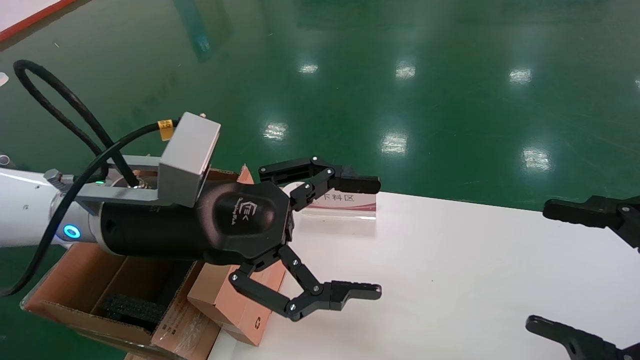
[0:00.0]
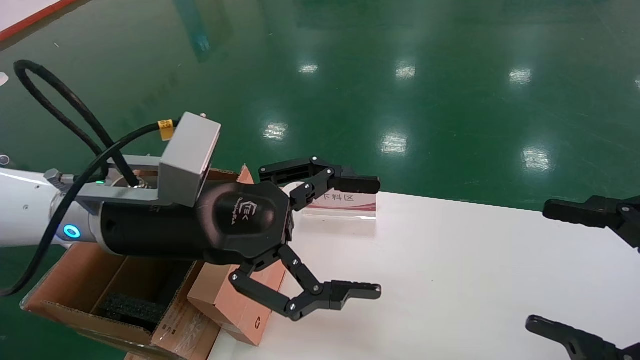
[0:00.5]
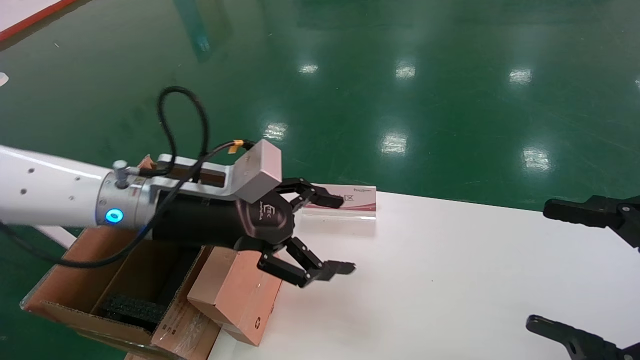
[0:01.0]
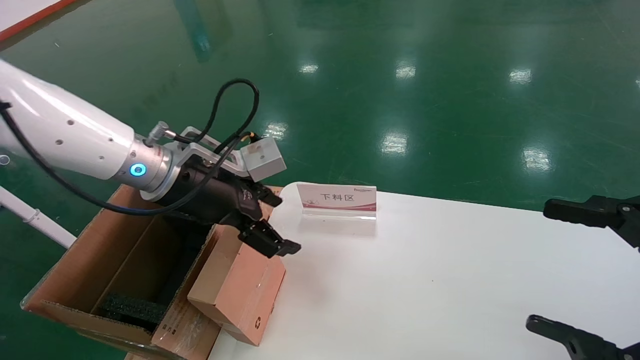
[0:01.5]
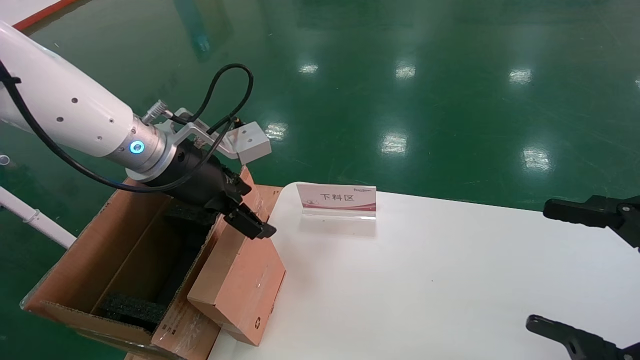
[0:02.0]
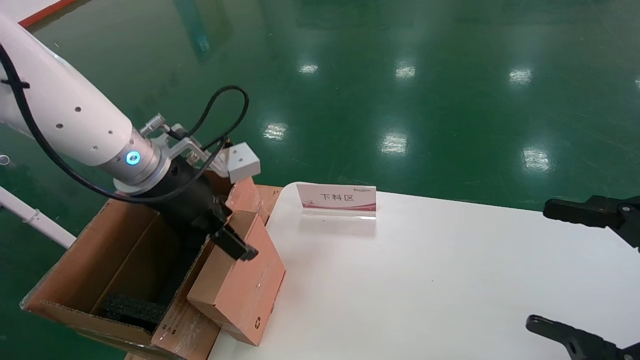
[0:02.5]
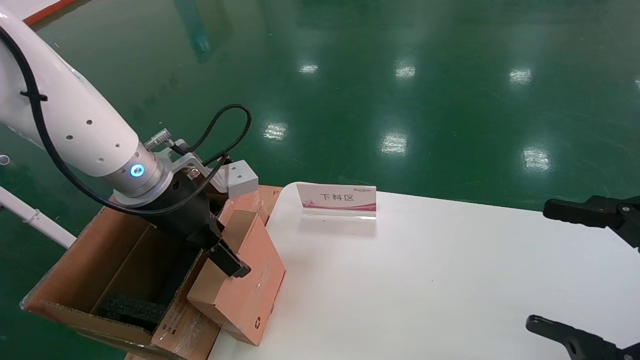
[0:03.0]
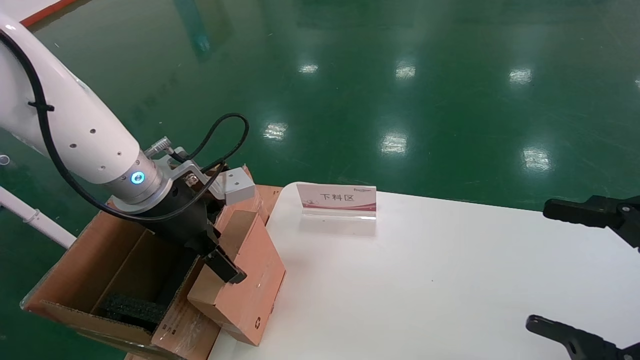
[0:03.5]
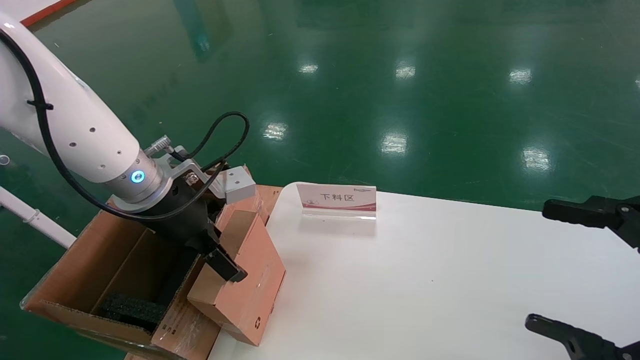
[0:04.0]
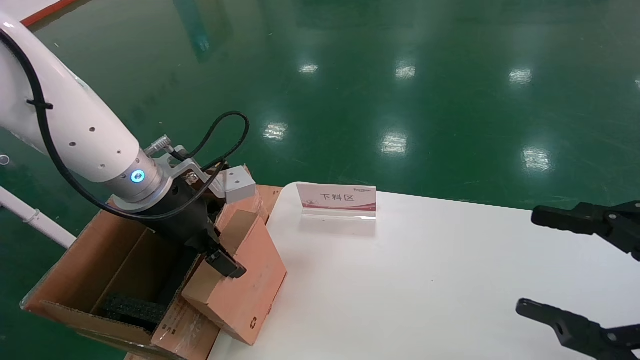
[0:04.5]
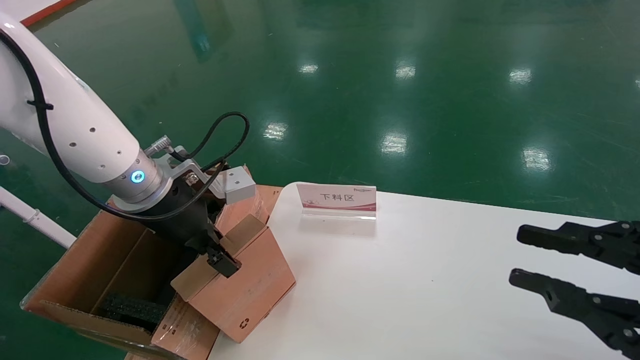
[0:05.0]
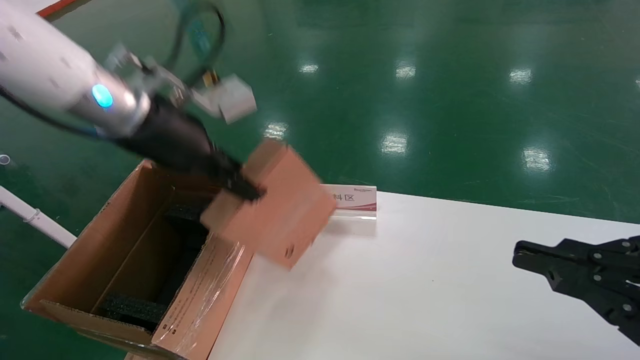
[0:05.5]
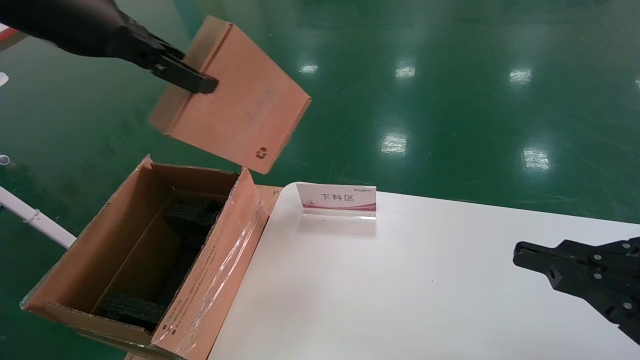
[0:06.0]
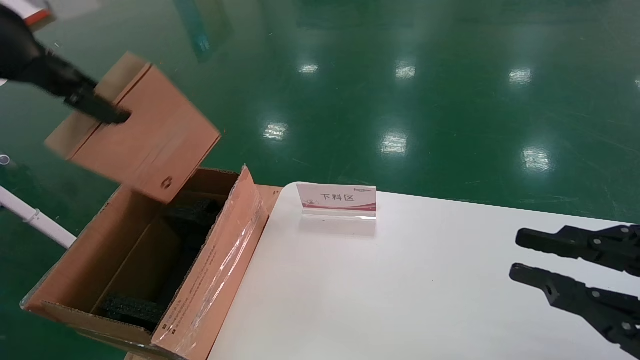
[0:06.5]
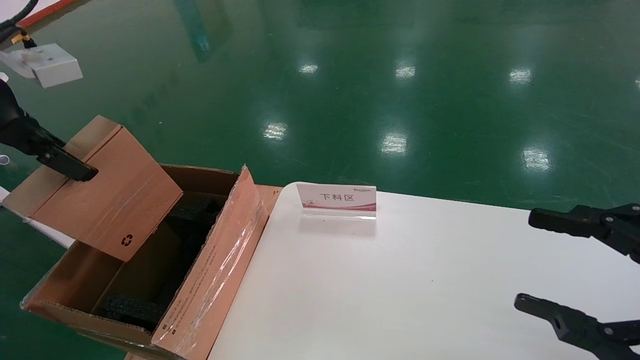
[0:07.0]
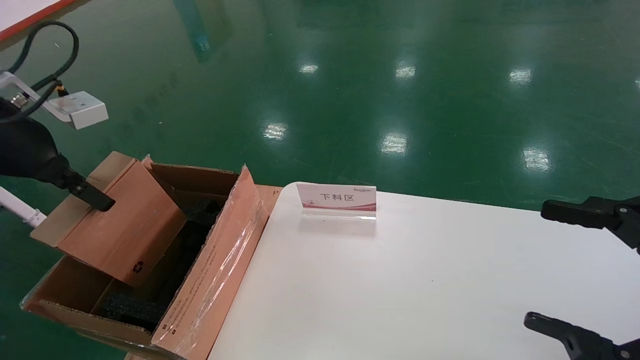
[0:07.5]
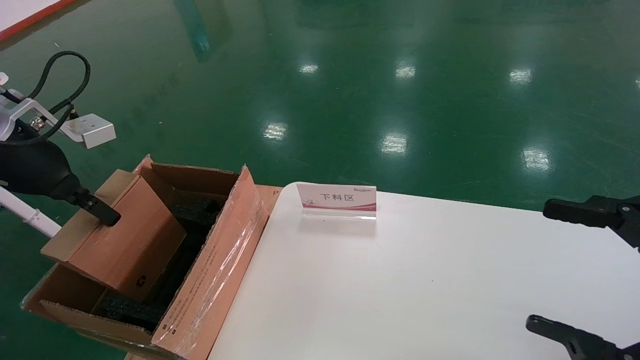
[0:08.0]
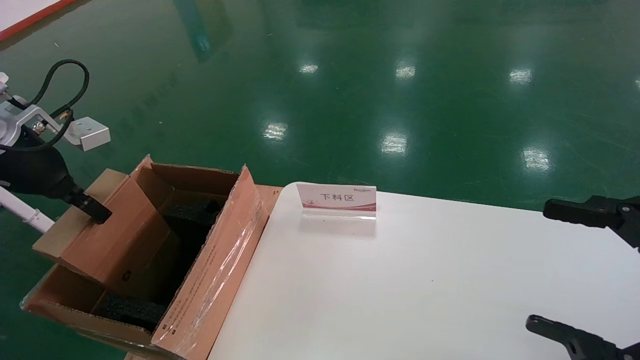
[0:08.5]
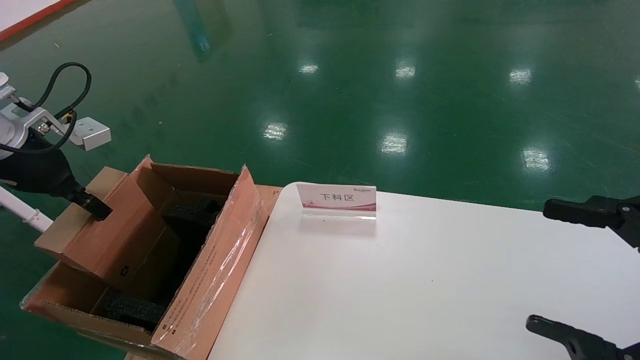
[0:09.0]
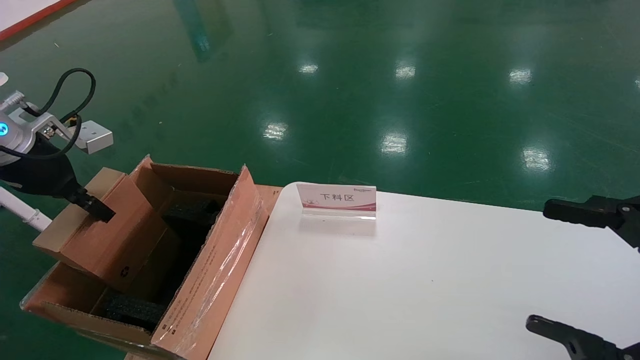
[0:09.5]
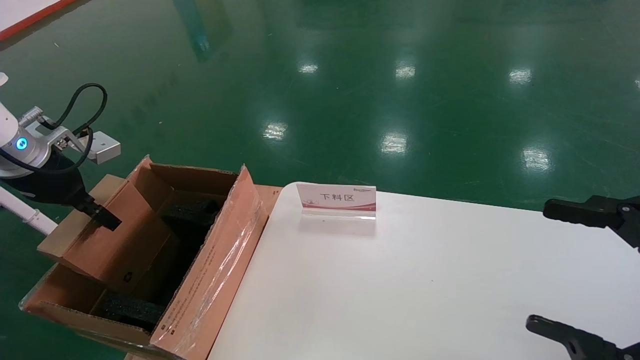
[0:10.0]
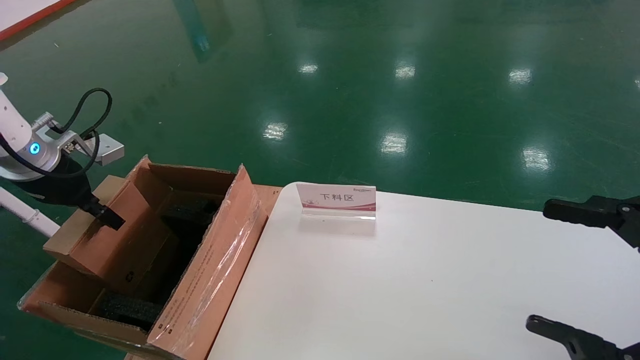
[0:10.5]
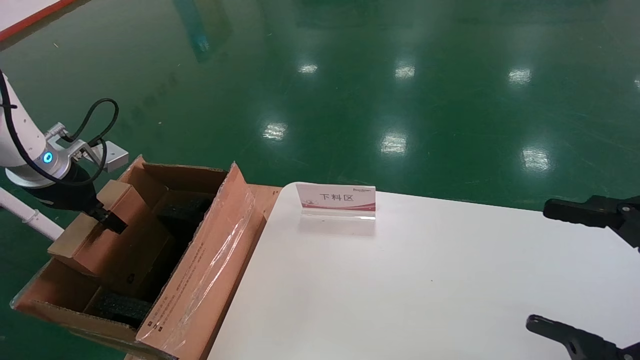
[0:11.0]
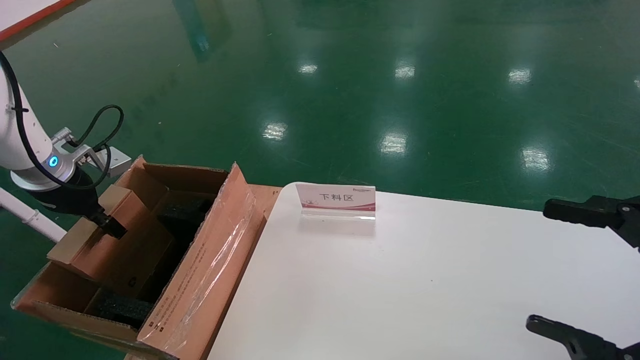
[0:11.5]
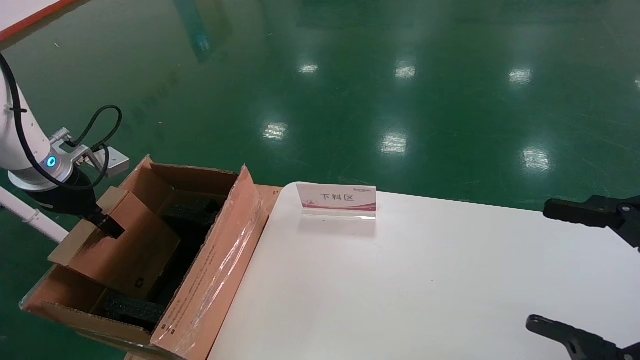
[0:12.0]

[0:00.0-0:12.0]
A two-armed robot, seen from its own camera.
Task of the whole recording: pick up the small cardboard box and load it into the large cardboard box.
Step, 0:01.0 to 0:05.0: Pick up the mouse and power cord box.
0:00.0 to 0:02.0: The left gripper moves forward, about 10 cm.
0:02.0 to 0:04.0: The grippers stay close to where they were, moving slightly.
0:04.0 to 0:06.0: The left gripper heads upward, covering roughly 20 cm, and closes. The right gripper closes up.
0:06.0 to 0:08.0: The left gripper heads downward and to the left, covering some 20 cm, while the right gripper opens.
0:08.0 to 0:10.0: The left gripper ends up roughly 5 cm from where it was.
0:10.0 to 0:12.0: The grippers stay close to where they were, moving slightly.

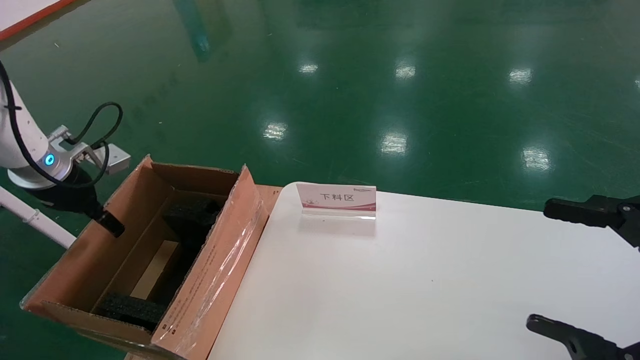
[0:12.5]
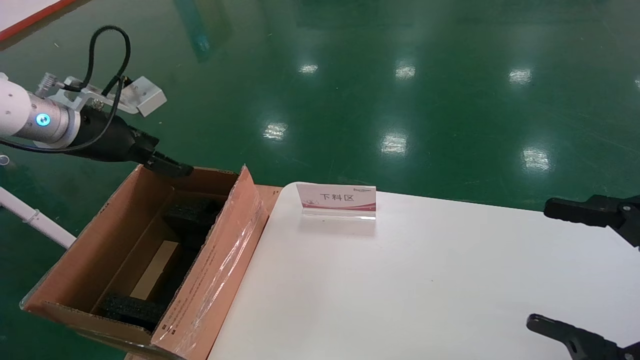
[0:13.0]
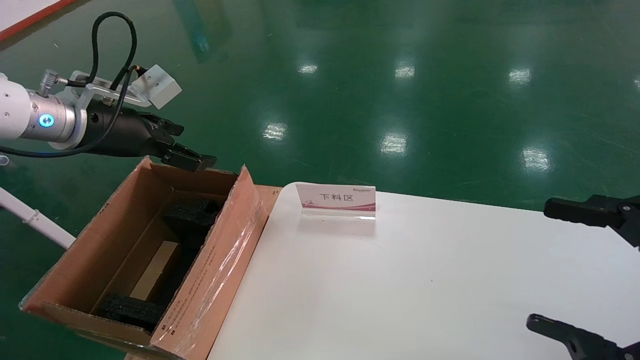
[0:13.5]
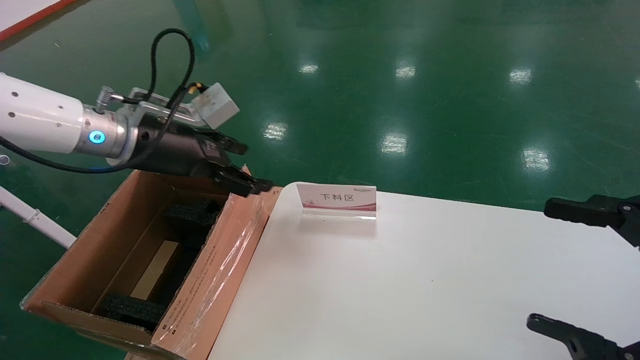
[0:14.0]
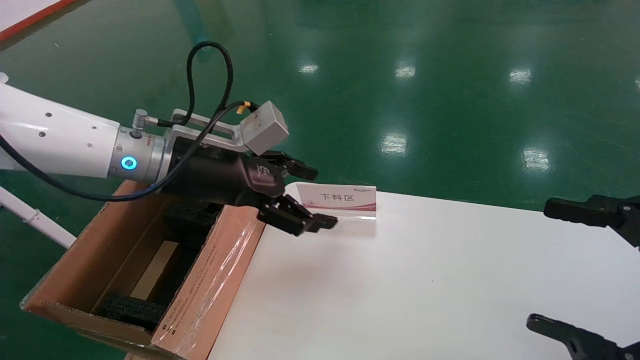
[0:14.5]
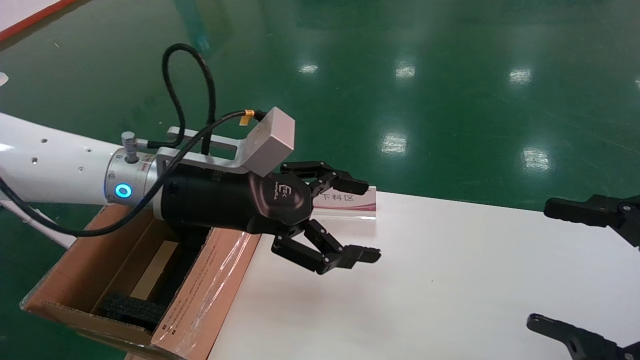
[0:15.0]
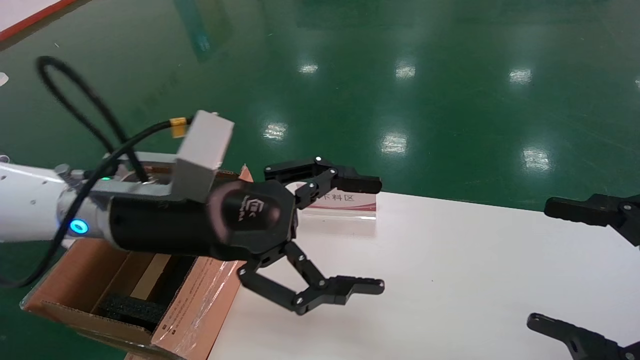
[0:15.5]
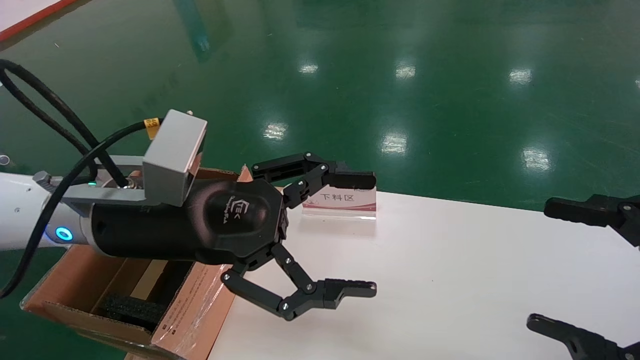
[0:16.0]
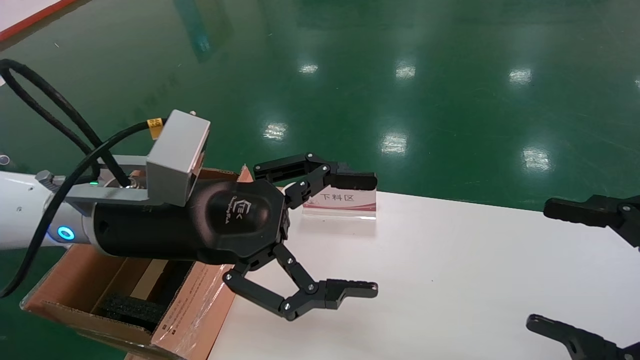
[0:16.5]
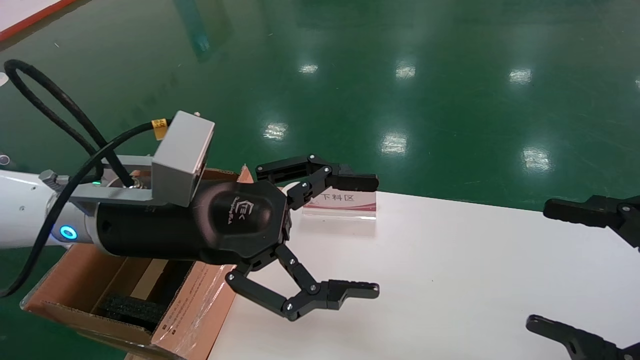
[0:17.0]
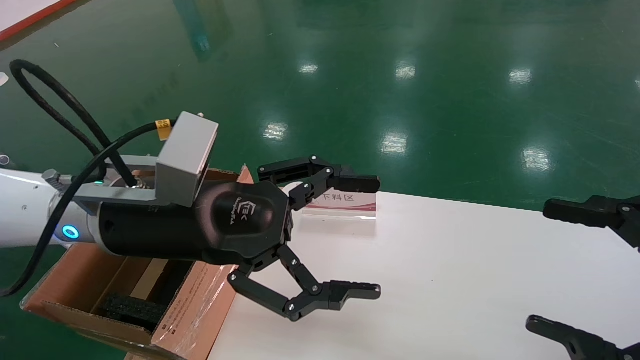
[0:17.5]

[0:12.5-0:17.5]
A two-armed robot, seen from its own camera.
Task of the whole recording: pick up the small cardboard box and load it into the large cardboard box.
0:12.5 to 0:15.0: The left gripper is displaced to the right by approximately 25 cm.
0:15.0 to 0:17.5: The left gripper moves some 5 cm.
